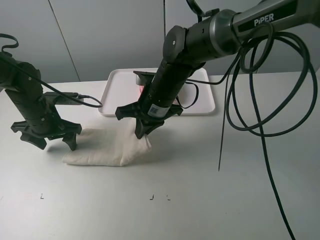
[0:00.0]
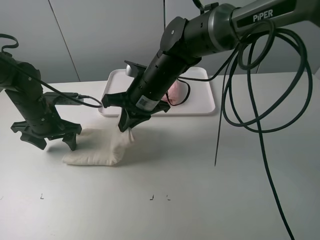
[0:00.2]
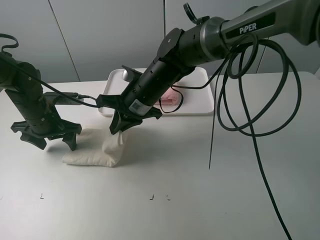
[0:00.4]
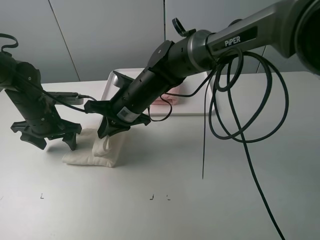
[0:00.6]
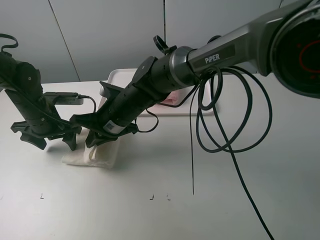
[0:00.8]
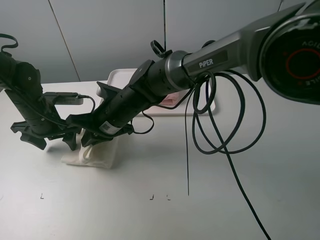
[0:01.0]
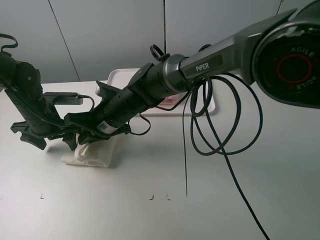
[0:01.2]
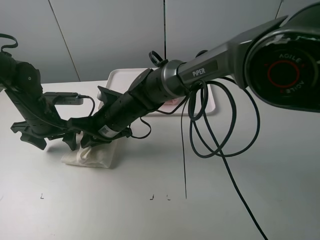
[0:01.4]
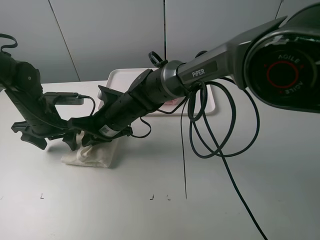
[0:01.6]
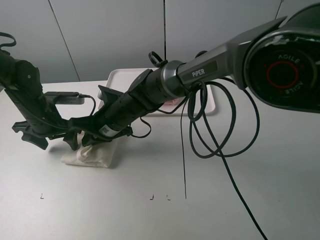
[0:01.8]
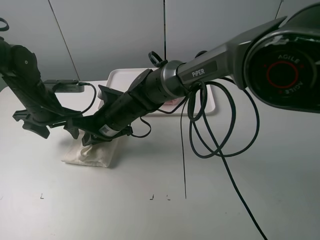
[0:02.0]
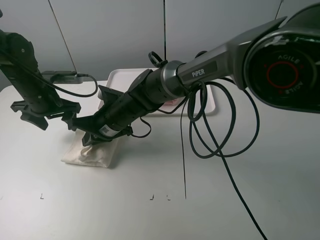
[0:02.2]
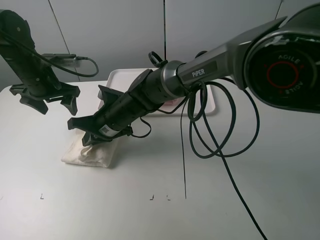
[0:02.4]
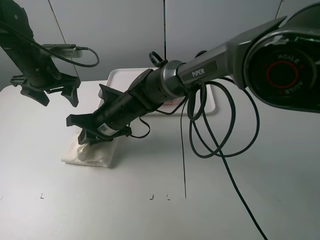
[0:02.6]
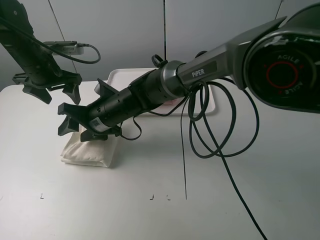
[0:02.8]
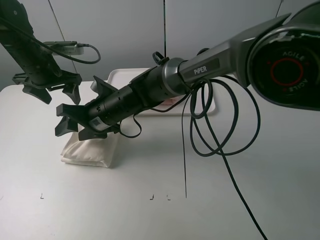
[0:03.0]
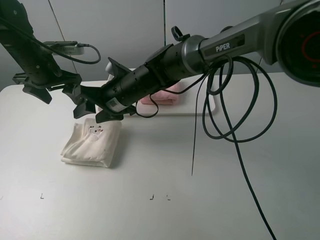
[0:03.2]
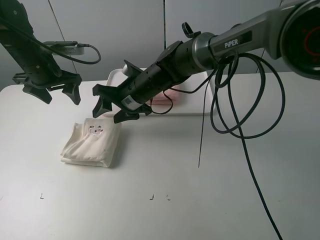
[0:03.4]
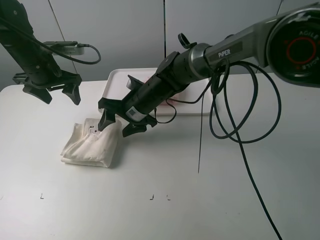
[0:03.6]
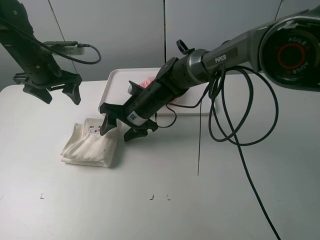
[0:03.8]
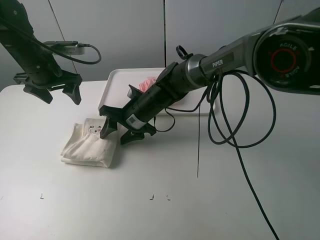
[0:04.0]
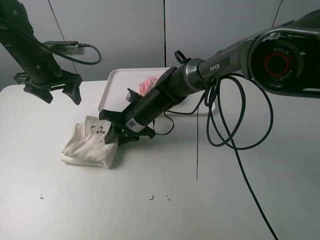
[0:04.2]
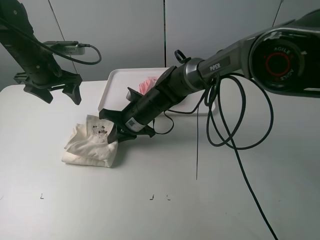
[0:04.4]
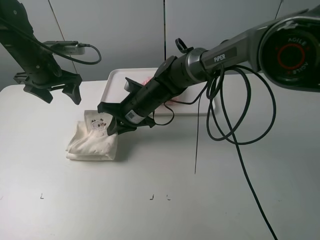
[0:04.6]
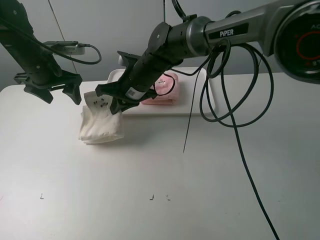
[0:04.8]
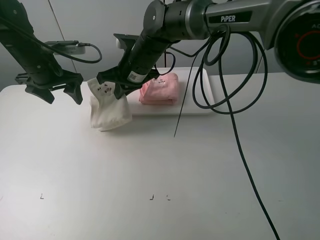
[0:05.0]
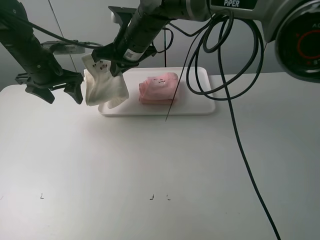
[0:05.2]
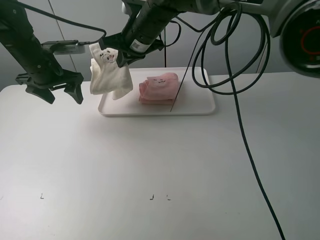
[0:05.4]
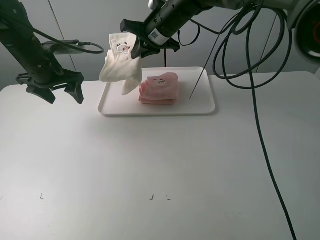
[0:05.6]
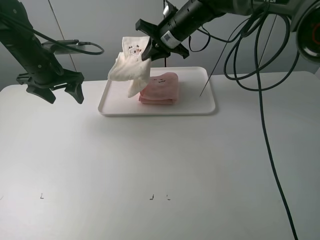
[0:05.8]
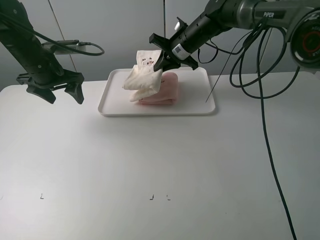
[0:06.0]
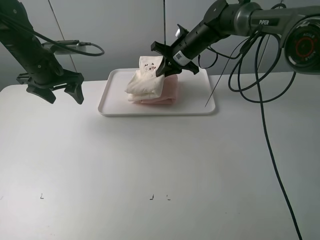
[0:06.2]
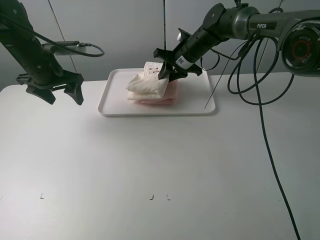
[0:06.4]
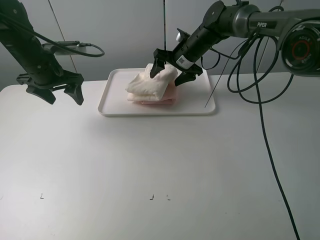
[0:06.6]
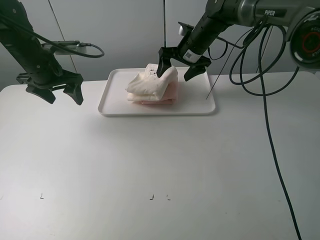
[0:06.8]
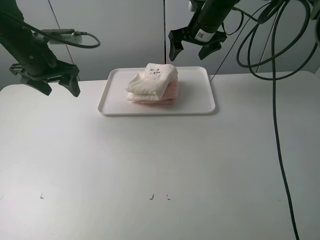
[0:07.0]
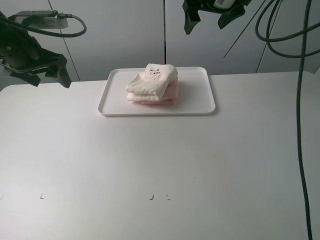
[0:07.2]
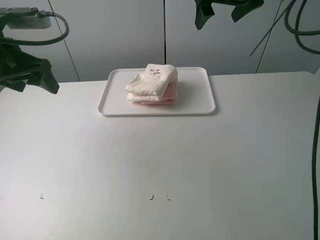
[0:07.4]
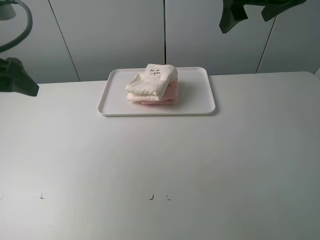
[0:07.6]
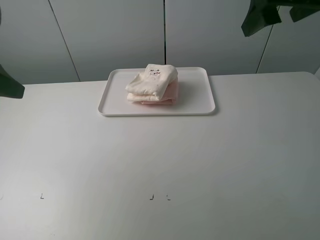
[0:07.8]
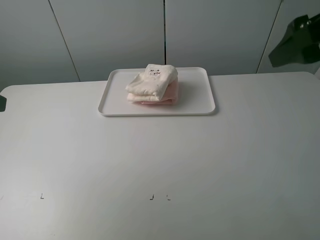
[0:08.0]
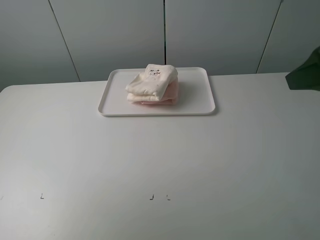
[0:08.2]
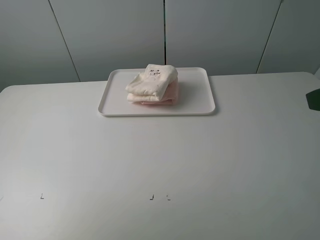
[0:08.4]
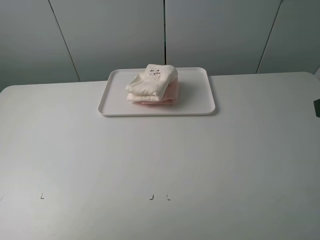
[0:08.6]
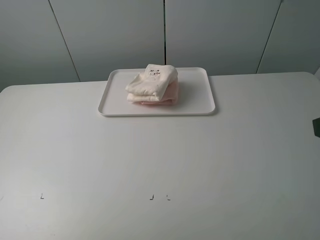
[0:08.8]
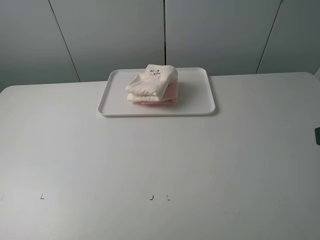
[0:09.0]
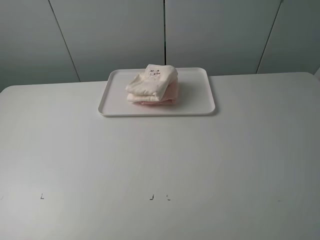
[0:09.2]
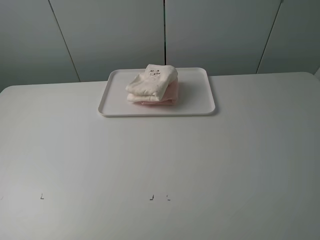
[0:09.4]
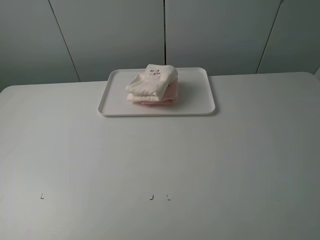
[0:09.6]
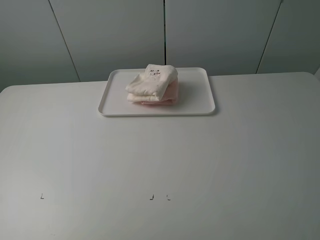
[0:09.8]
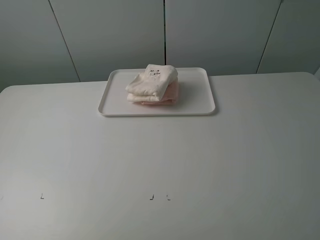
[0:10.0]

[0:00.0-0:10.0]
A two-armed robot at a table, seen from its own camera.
Task of the whole recording: fold one of the towels by two grippers and place it on the tray,then fold another towel by two grippers and place it on the folded towel.
Step, 0:00.0 to 0:03.0: Fold the white towel from right to left with right gripper.
Step, 0:03.2 to 0:04.2: Grasp the white towel with the right gripper.
Step, 0:04.4 to 0:06.6: Place the white towel on the pink towel with the right gripper.
0:00.0 to 0:01.4: The right gripper travels to the left and downward by about 10 cm.
0:01.4 to 0:02.8: The left gripper is displaced upward and forward by about 10 cm. The right gripper opens up.
0:02.8 to 0:04.2: The right gripper goes some 5 cm to the right, and closes.
0:04.2 to 0:05.8: The right gripper goes about 20 cm upward, forward and to the right.
0:05.8 to 0:07.2: The left gripper shifts some 10 cm upward and backward. The right gripper shifts approximately 15 cm upward and to the right, and opens.
0:07.2 to 0:08.6: Both grippers move backward, some 30 cm.

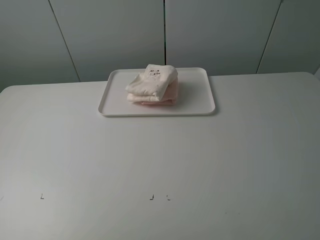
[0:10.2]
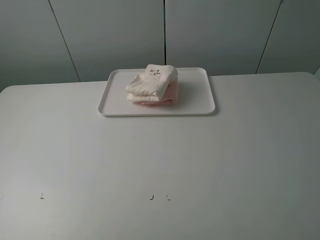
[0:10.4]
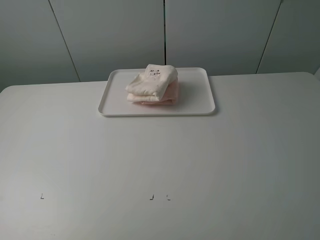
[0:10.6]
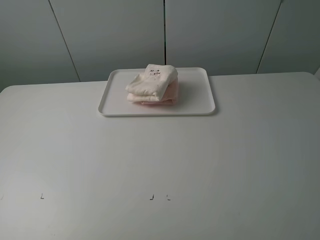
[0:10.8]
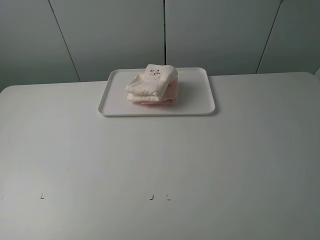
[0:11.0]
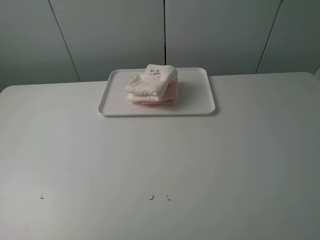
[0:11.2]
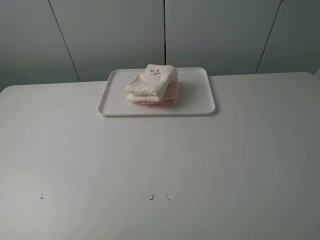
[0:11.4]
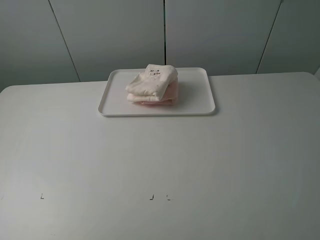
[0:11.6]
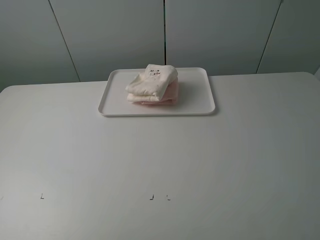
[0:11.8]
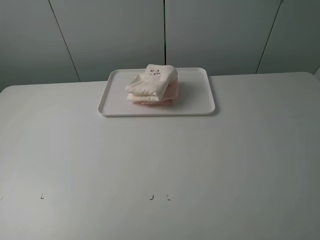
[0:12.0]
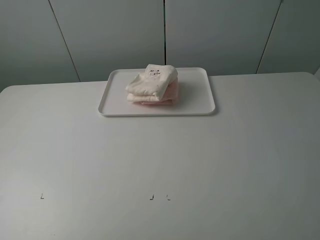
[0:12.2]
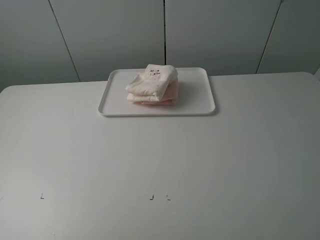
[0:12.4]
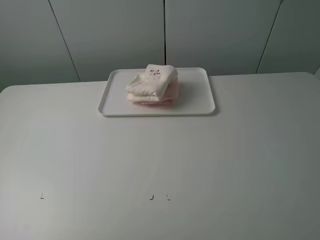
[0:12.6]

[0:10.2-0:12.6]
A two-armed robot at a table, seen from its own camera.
Task of the whole recording: fold one of the towels by two grippers and place it on the tray,then fold another towel by two grippers and place it on the folded towel.
0:11.4 to 0:12.6: The two grippers keep their place.
